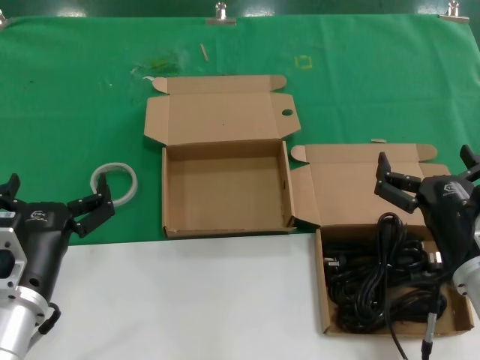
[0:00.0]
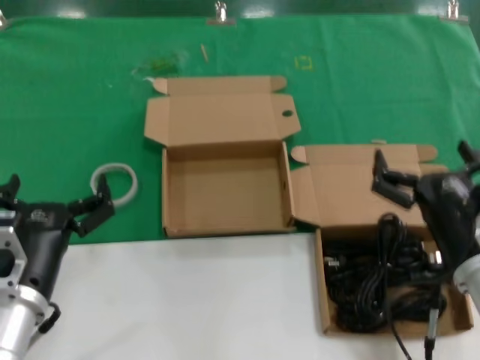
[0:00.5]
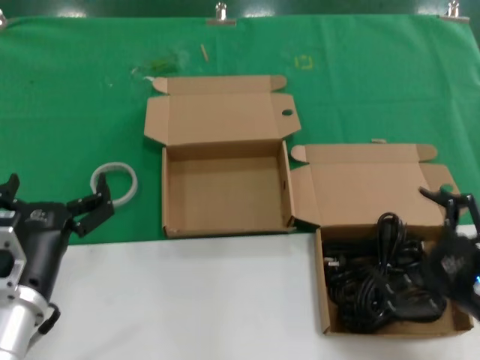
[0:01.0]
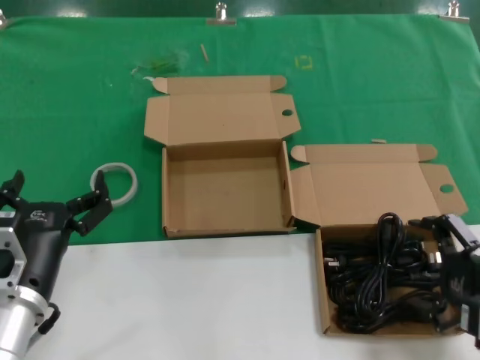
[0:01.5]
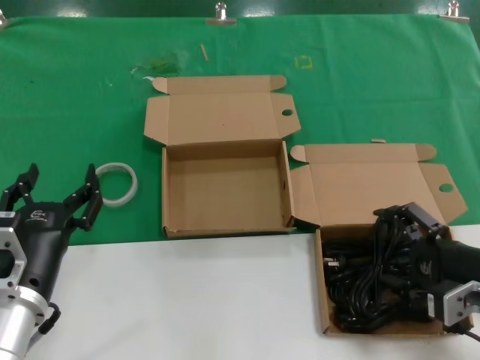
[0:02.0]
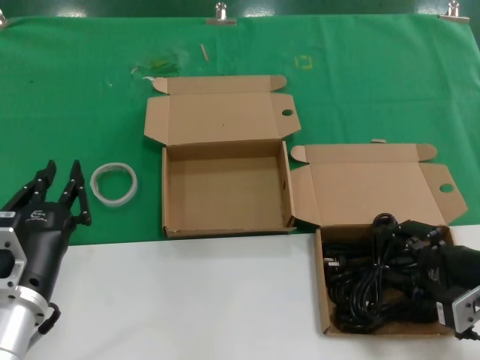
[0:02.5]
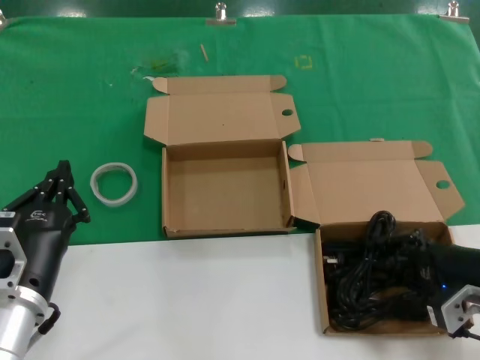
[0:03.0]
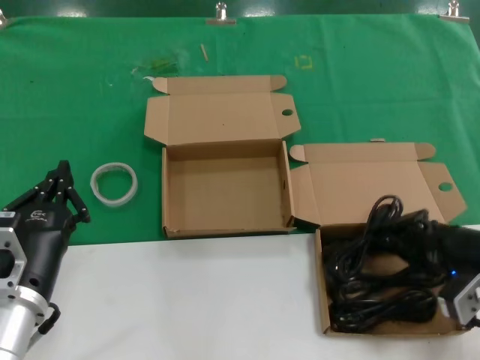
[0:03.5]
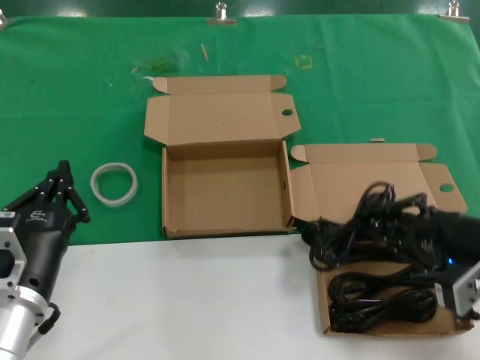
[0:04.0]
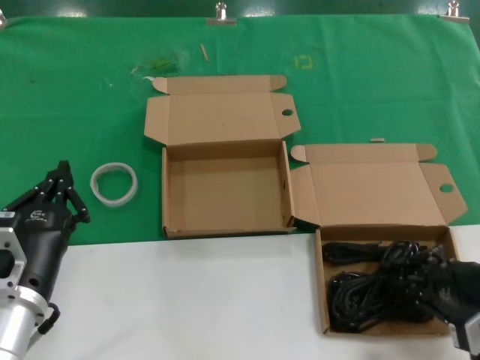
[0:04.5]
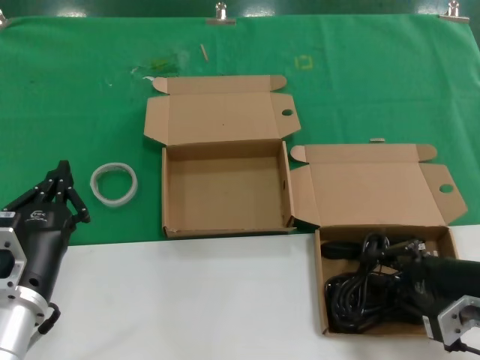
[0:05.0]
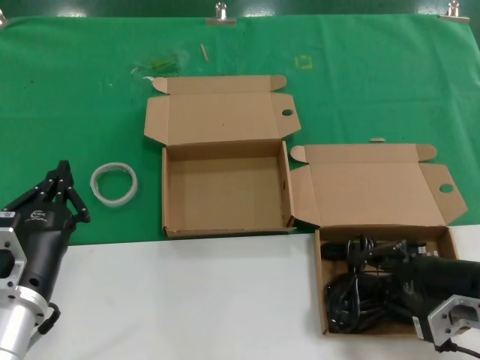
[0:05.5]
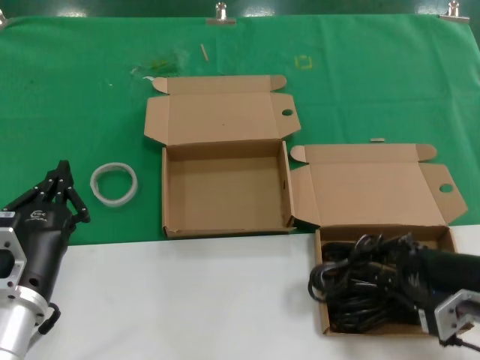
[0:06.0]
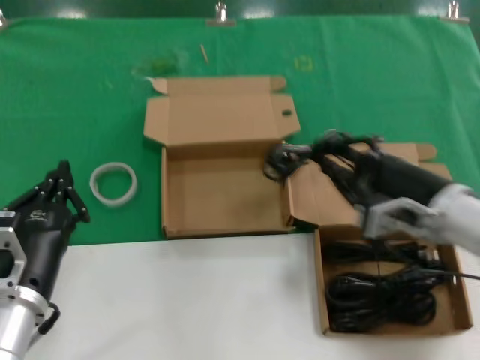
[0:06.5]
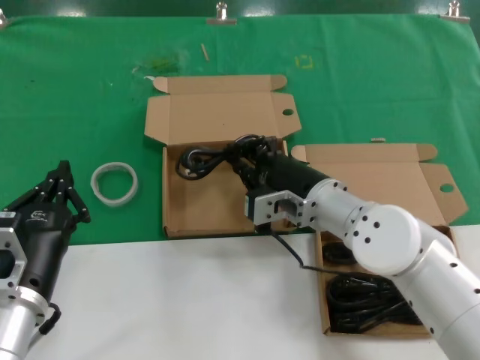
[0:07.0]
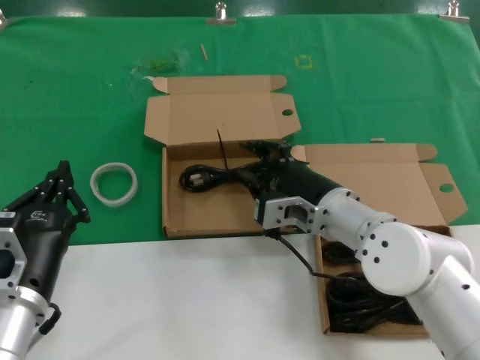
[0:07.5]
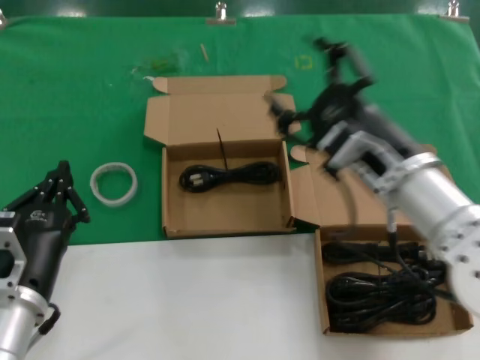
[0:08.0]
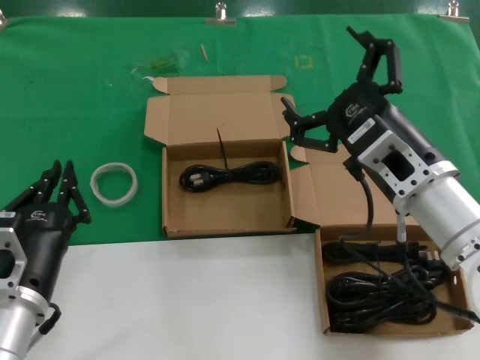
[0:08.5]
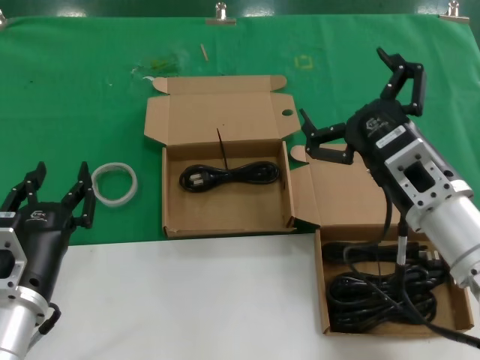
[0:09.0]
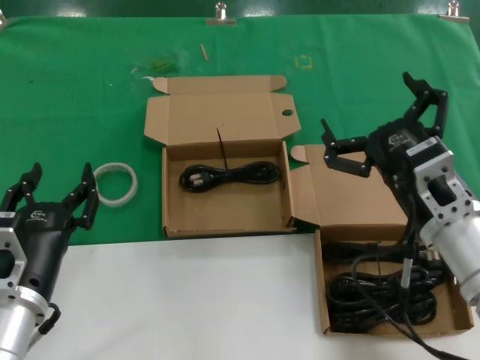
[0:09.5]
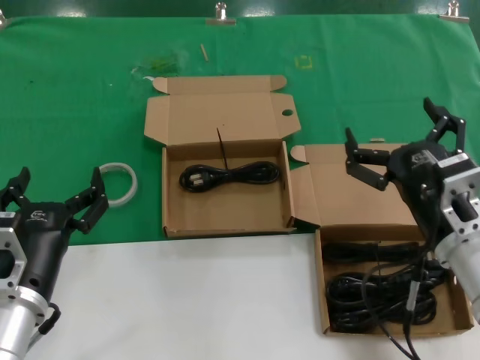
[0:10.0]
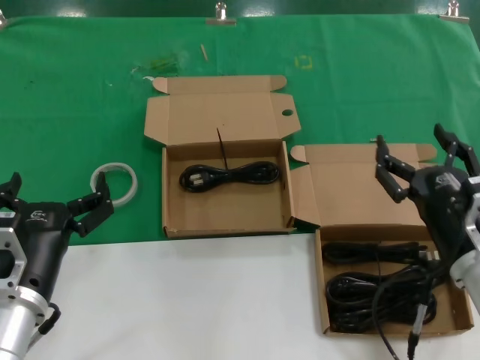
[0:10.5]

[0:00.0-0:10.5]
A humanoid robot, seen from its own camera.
Task of the whole recording: Pick up the power cord from the box containing it and place it in another box.
Step, 0:00.0 to 0:05.5: Grasp the data cable.
Step, 0:06.0 to 0:07.5: Place the data cable in the another box.
0:00.0 to 0:02.0: The right hand is displaced to the right by about 10 cm.
0:02.0 to 0:04.0: The right hand goes approximately 5 cm upward.
0:04.0 to 0:06.5: The right hand is displaced to the left and forward by approximately 10 cm.
0:06.5 to 0:08.5: The right hand shifts some 5 cm to the left.
0:08.5 to 0:10.5: The right hand is displaced downward and to the right by roughly 10 cm.
